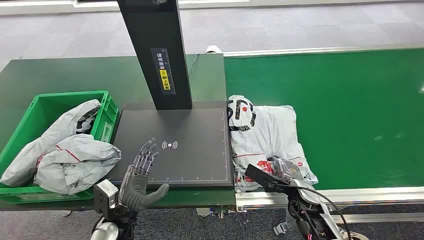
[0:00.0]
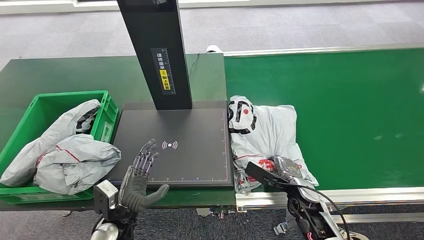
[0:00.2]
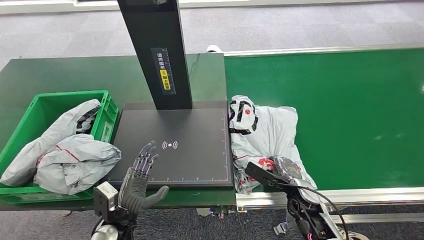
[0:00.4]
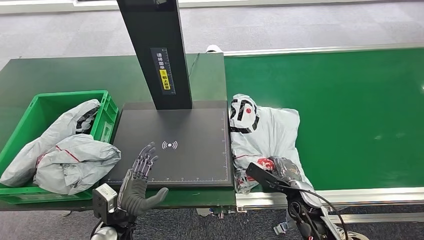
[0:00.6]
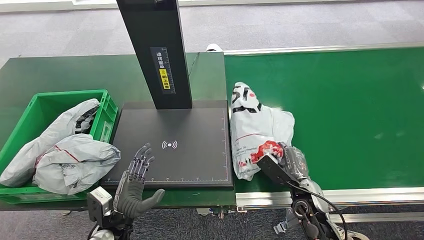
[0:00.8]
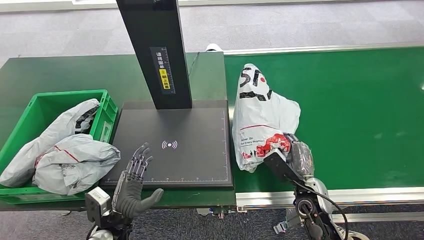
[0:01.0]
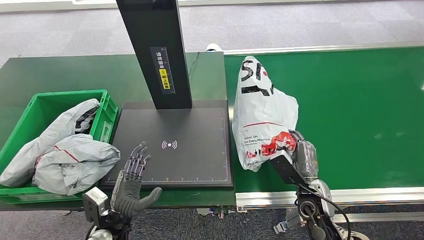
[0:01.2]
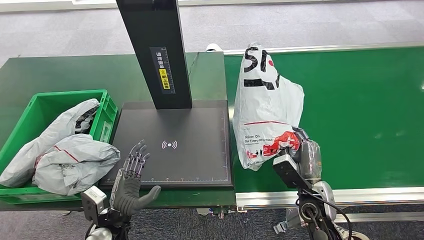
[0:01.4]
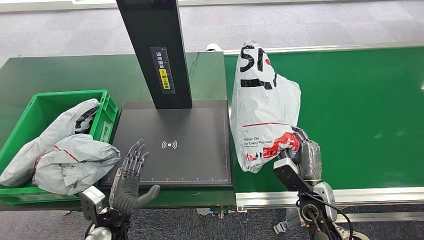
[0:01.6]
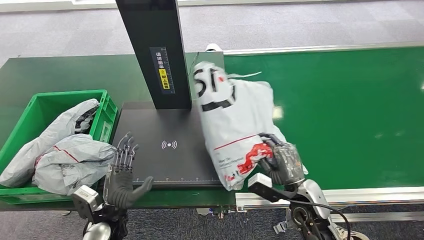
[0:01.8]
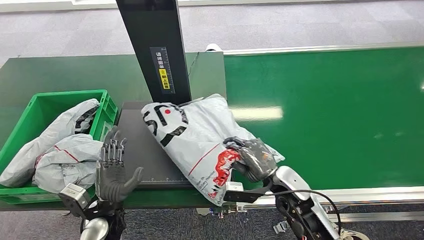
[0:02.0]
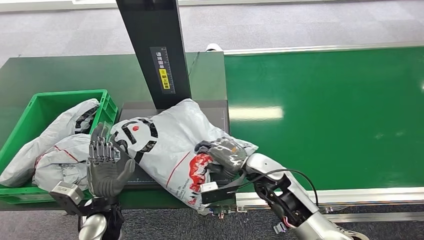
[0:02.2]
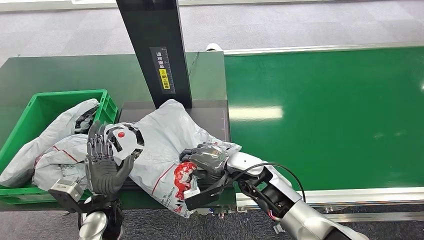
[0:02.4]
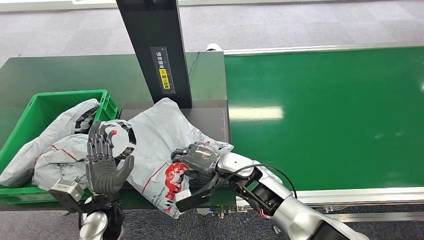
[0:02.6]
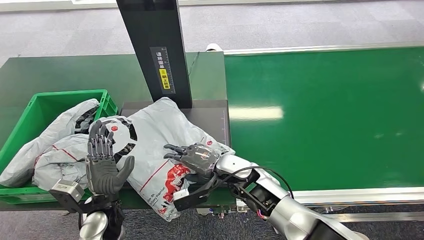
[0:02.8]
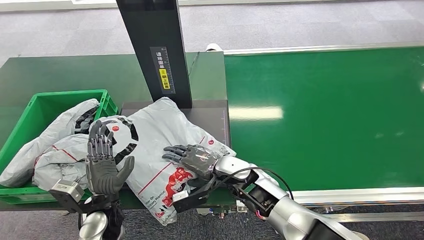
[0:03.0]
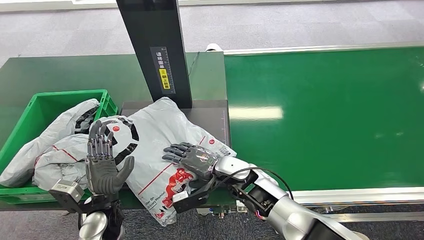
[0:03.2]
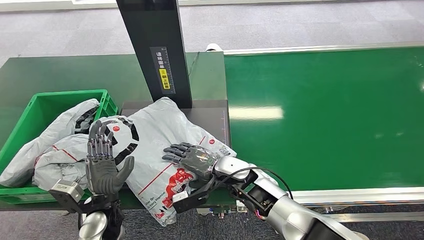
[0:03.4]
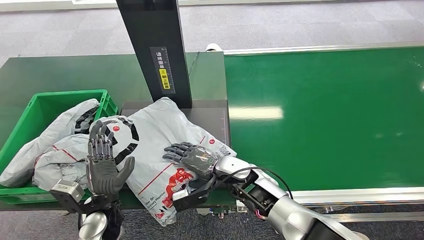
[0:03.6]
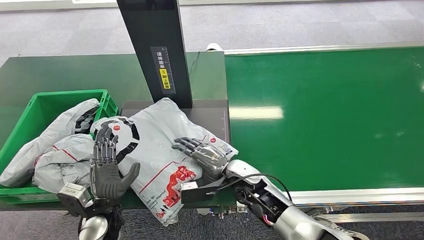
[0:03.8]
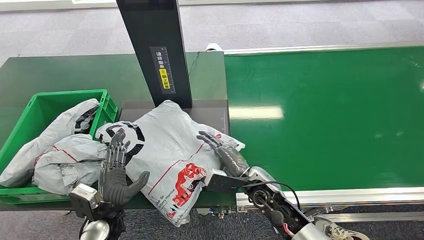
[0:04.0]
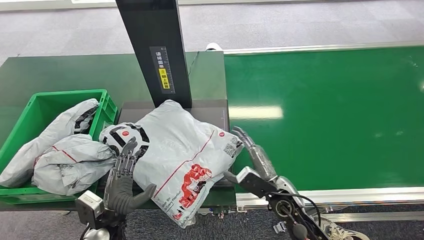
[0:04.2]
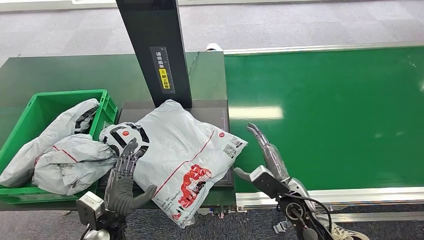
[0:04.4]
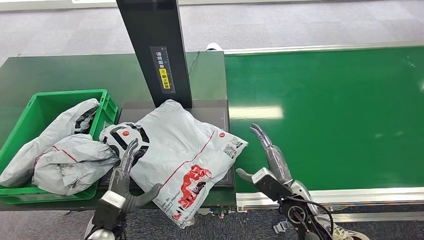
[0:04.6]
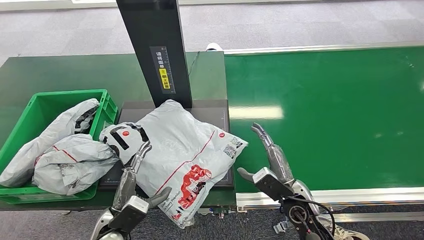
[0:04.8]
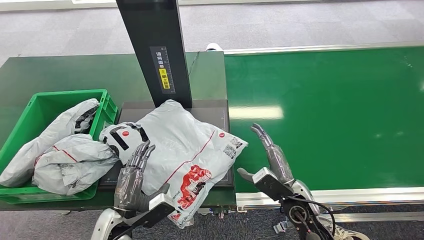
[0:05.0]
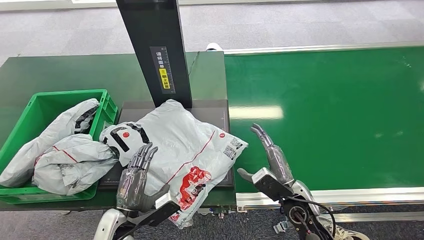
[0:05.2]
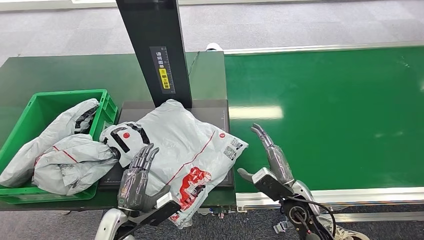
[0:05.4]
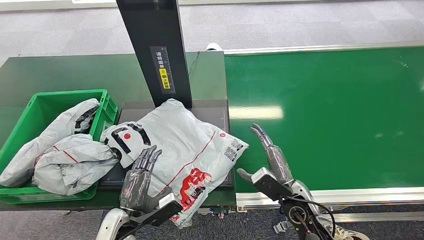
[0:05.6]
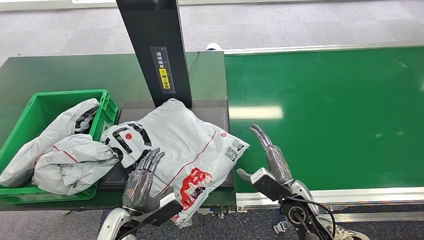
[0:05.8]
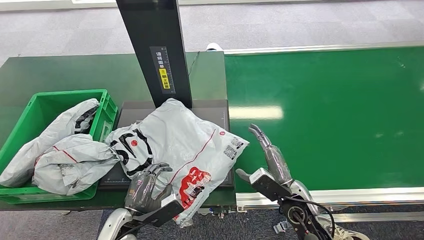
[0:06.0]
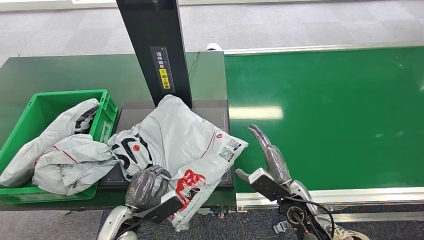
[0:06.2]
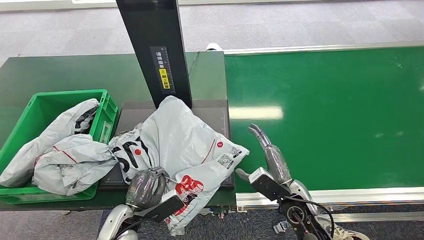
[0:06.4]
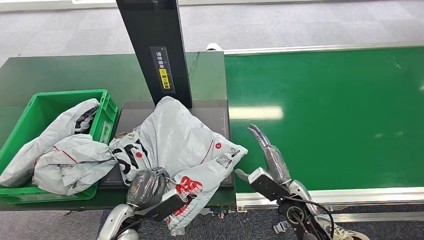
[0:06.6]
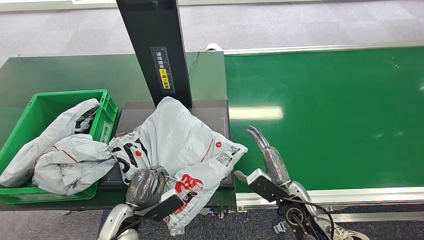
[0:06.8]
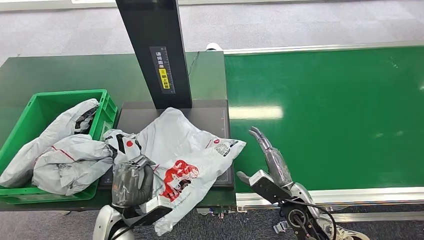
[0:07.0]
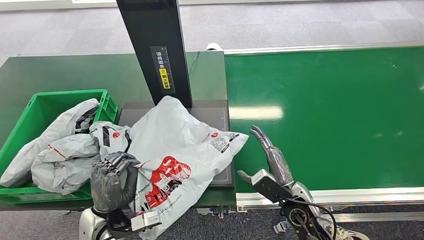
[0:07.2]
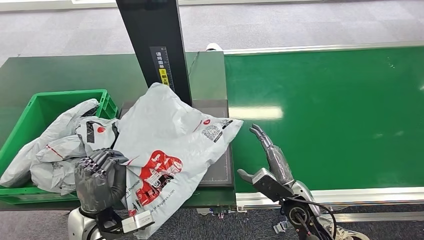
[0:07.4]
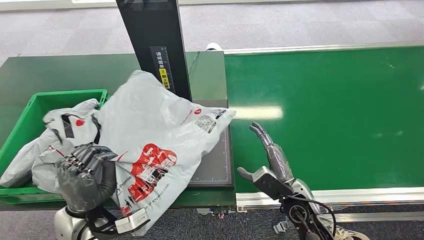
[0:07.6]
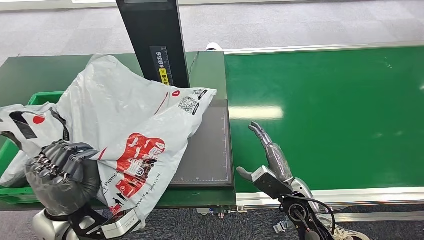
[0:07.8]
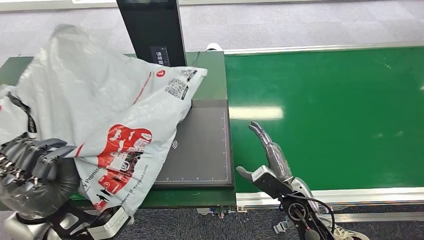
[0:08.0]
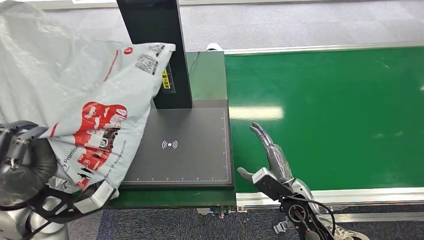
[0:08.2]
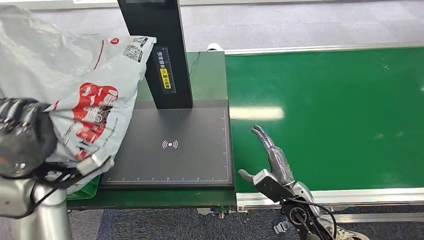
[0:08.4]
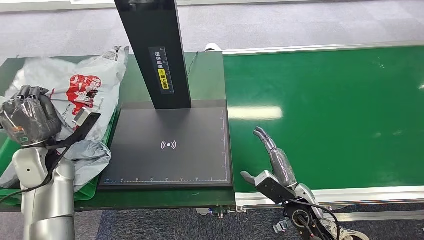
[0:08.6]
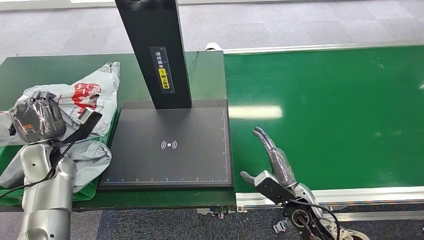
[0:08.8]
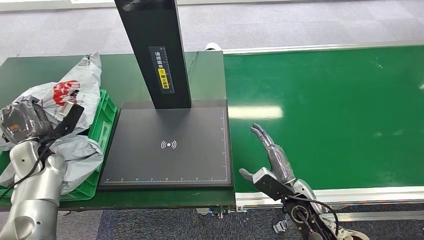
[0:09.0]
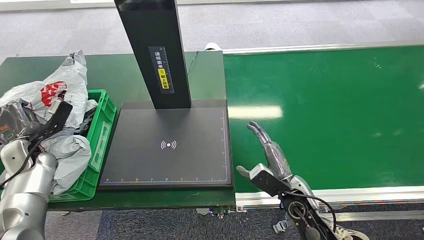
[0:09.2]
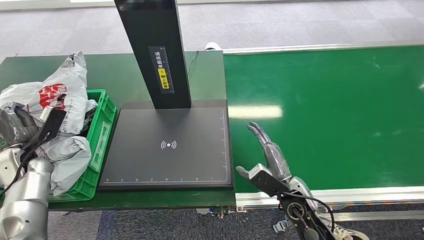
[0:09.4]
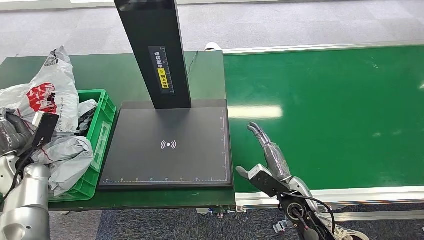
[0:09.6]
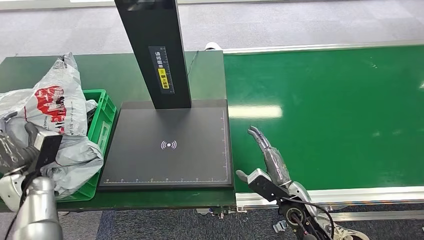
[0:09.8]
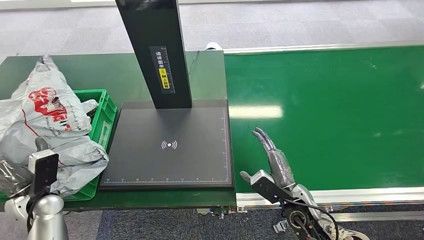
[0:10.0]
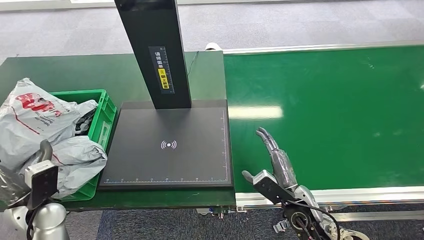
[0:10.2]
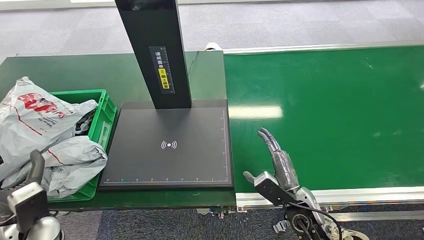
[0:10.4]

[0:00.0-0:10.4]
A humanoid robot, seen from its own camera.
Step, 0:00.0 to 0:01.6: Pick up the package from the conveyor belt.
Step, 0:01.8 to 0:04.6: Place the package onto the inbound machine.
Step, 0:04.8 to 0:07.6: Pick up the package from the inbound machine.
0:03.0 to 0:04.4: The right hand goes some 15 cm to the right and backward.
0:06.0 to 0:07.4: The left hand shifts some 10 cm upward.
0:09.0 to 0:10.4: The left hand travels backward and to the right by some 15 cm.

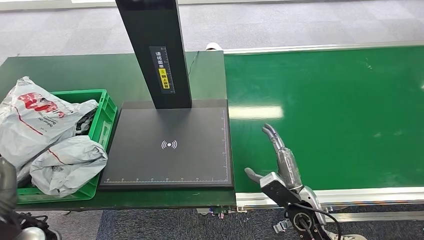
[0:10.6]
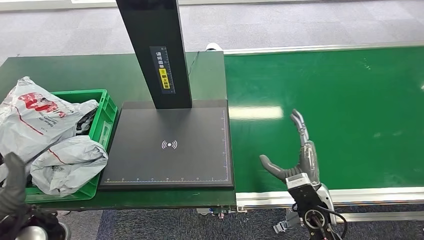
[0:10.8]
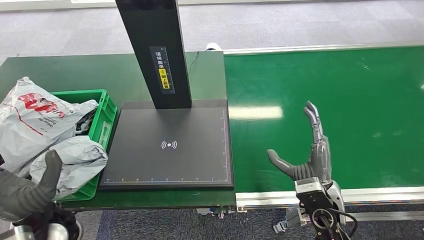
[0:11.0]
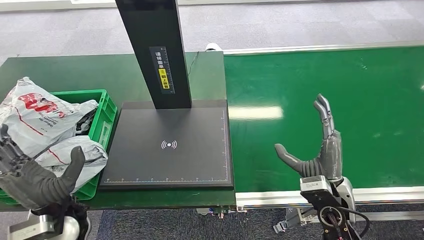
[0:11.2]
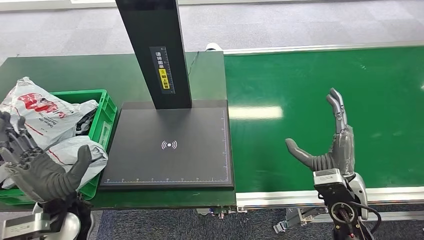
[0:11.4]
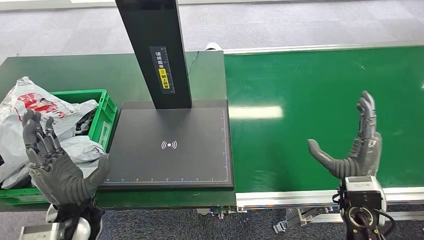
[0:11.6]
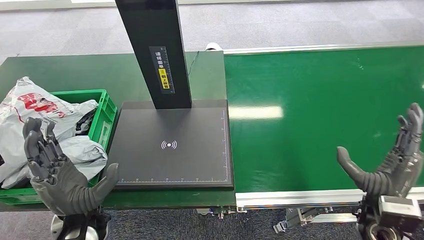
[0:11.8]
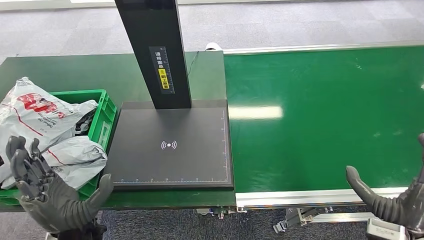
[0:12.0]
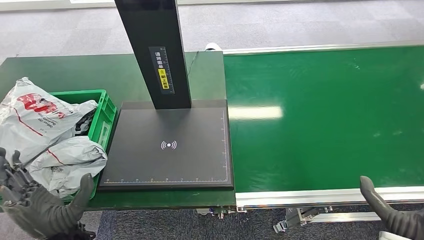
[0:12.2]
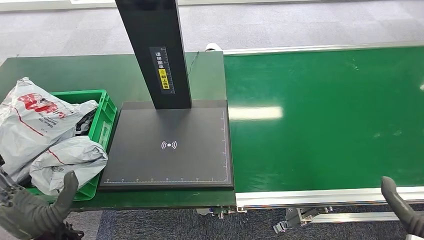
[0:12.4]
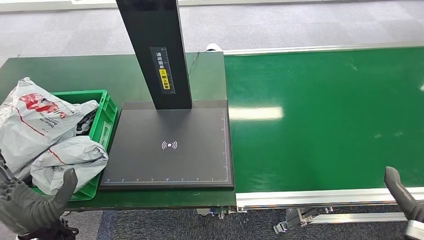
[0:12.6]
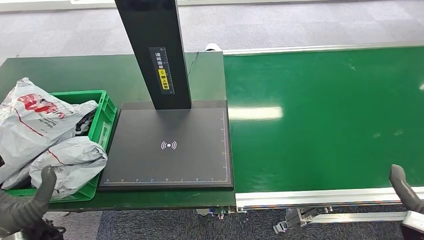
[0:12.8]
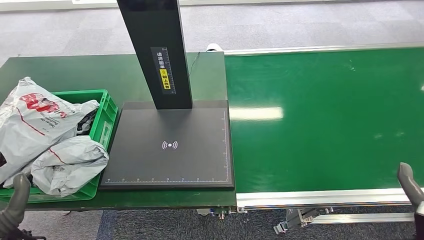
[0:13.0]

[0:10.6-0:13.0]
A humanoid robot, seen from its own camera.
Step, 0:10.6 to 0:13.0: Place the package into the parcel locker.
0:10.6 to 0:11.8: The left hand moves to the right, roughly 10 cm. Meanwhile the right hand shifts roughly 15 cm to the right and upward.
0:11.8 to 0:13.0: The left hand shifts some 10 cm to the left. Meanwhile the right hand is displaced backward and to the right by approximately 10 cm.
